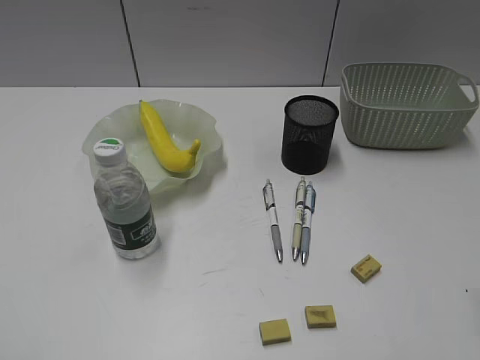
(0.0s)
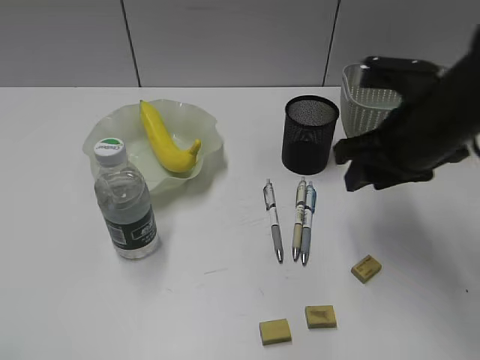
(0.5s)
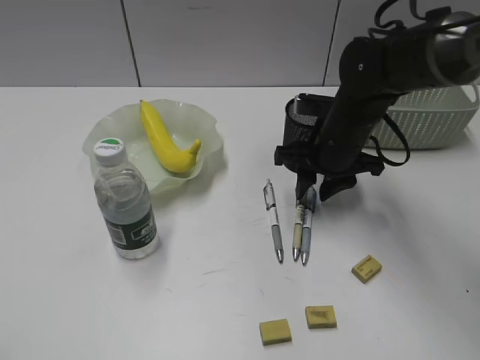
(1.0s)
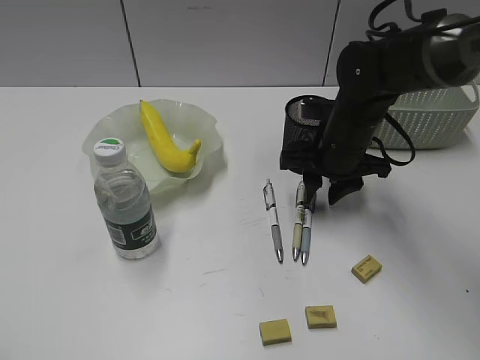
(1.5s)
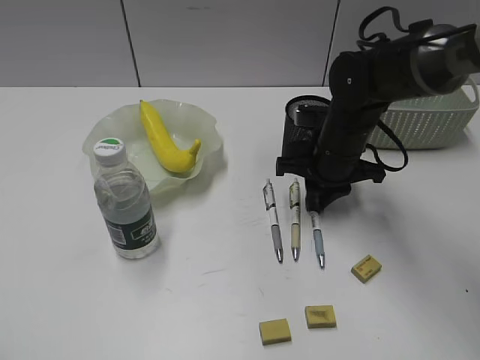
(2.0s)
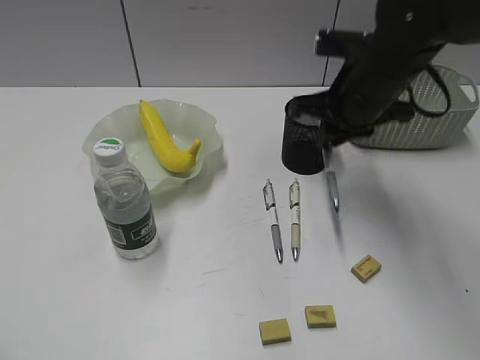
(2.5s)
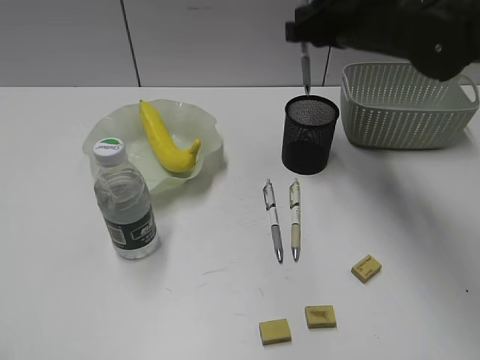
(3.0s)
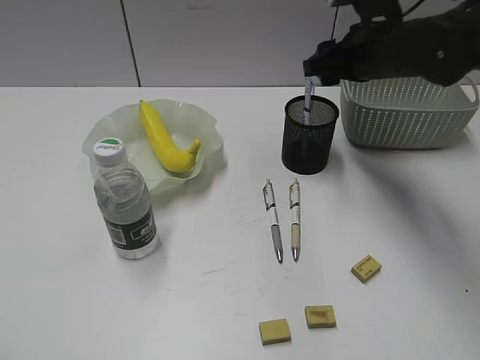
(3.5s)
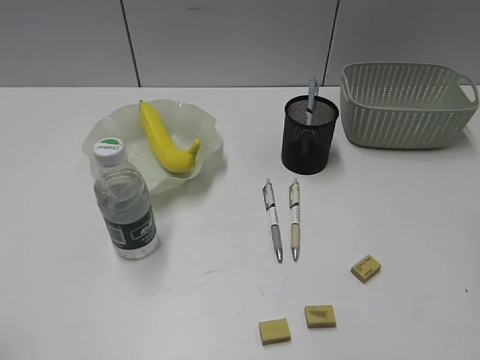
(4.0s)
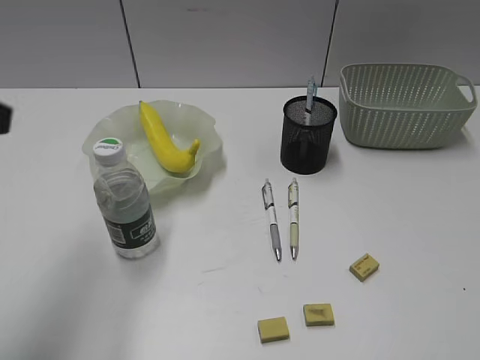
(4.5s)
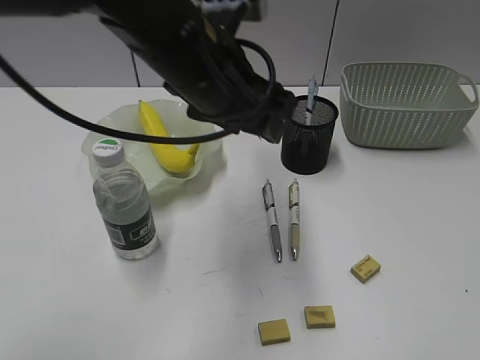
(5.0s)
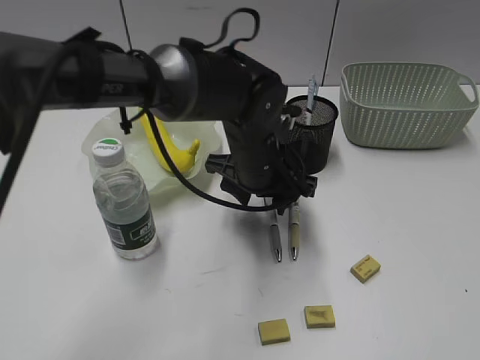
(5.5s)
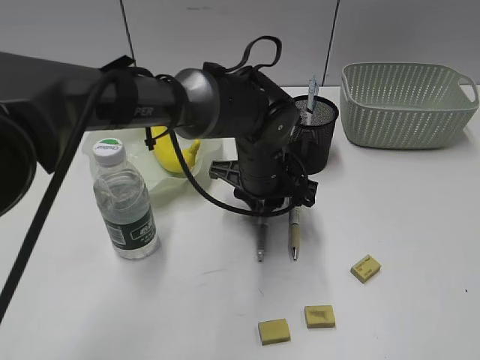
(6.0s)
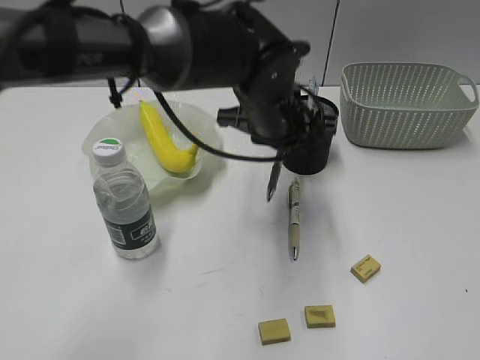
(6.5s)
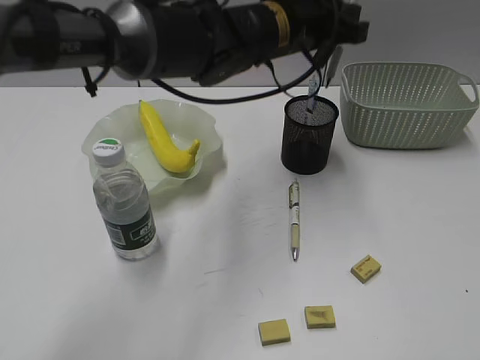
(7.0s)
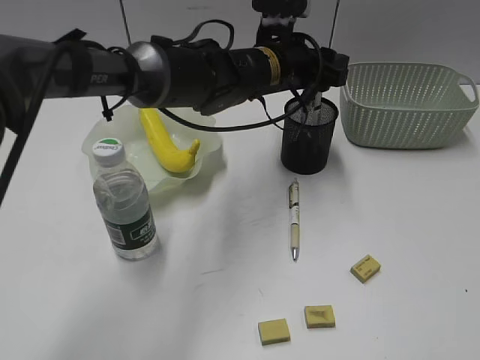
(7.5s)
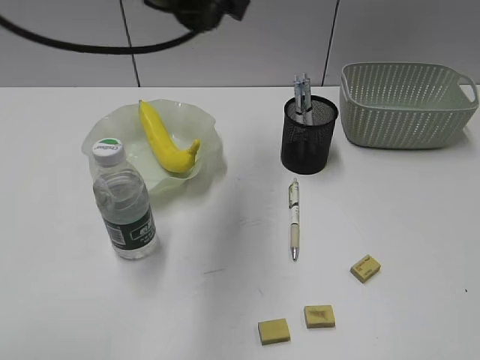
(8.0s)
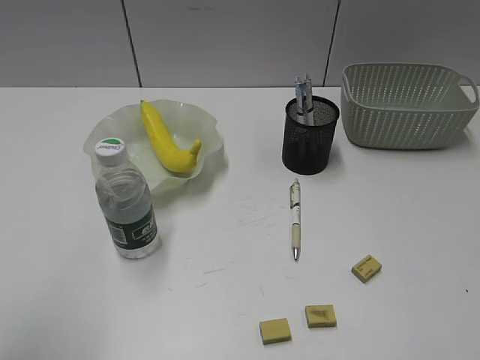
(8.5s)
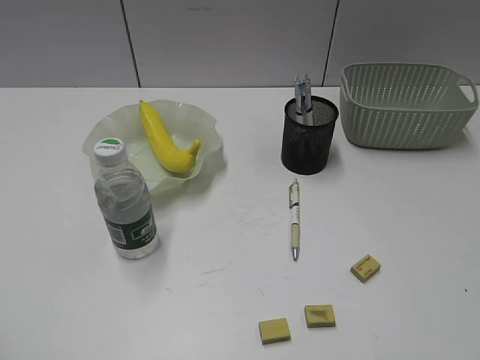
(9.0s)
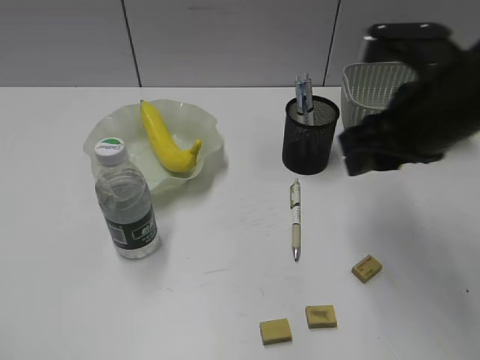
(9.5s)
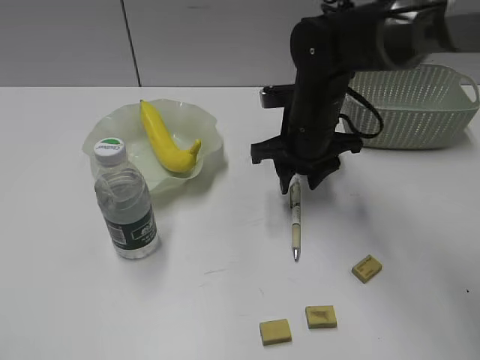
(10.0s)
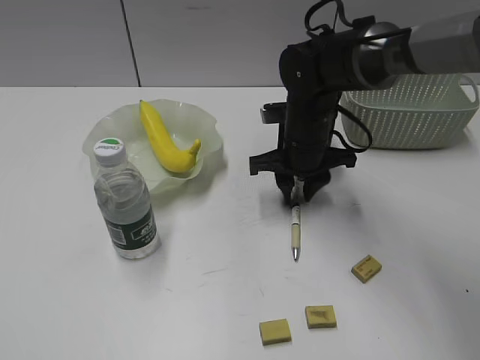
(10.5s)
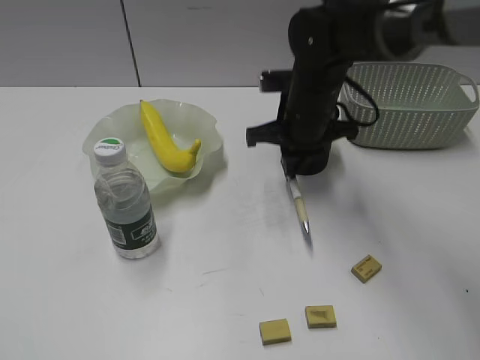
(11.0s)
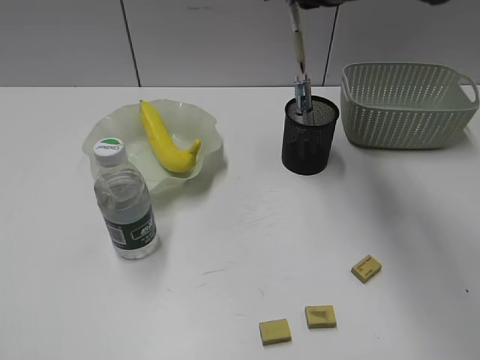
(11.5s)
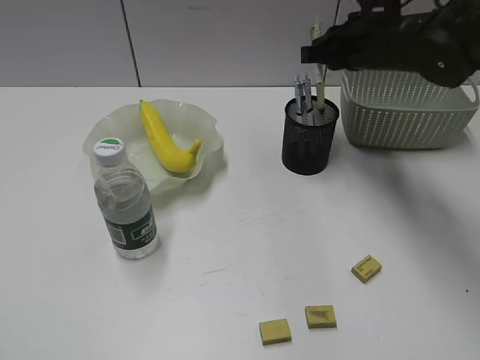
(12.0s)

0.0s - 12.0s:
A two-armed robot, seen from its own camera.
Step, 0.0s - 2.0s: Grasp the blue pen with right gripper.
Step, 2.5s - 3.5s: Place the blue pen in pen holder with right gripper.
Step, 4.0s - 6.0s: Grasp the gray pen with left gripper.
Step, 6.5s - 7.5s: Place the gray pen in pen holder with left gripper.
Step, 8.0s - 10.5s: Grasp the yellow pen with right gripper.
0.0s - 2.0s: The right gripper moves forward, downward and to the left, approximately 35 cm, and closes its fingers.
2.0s - 4.0s: The right gripper goes some 35 cm backward, upward and to the right, and opens.
4.0s - 6.0s: The right gripper travels backward by roughly 15 cm; the left gripper heads to the right, forward and downward, covering some 50 cm, and opens and closes again.
6.0s - 8.0s: The left gripper swings up and down, roughly 25 cm each way, with 2 reversals, and opens, then closes once more.
8.0s - 10.0s: The left gripper moves backward and to the left, approximately 40 cm, and opens, while the right gripper heads forward and to the left, covering roughly 40 cm.
10.0s - 12.0s: The right gripper travels to the right by some 10 cm, goes upward and returns, approximately 15 cm each way, and closes.

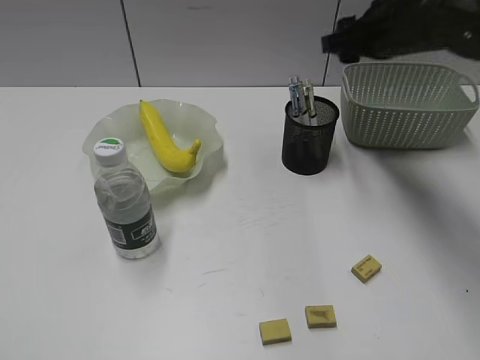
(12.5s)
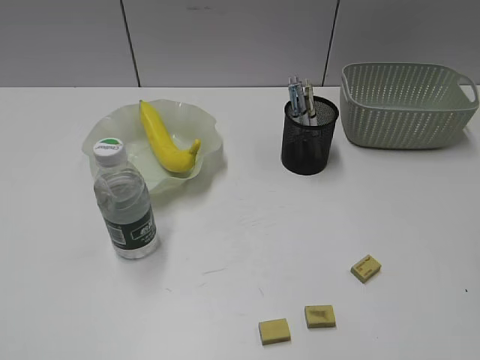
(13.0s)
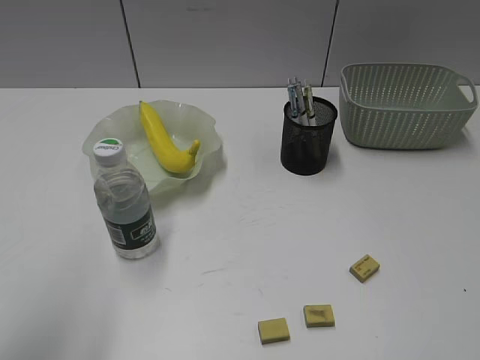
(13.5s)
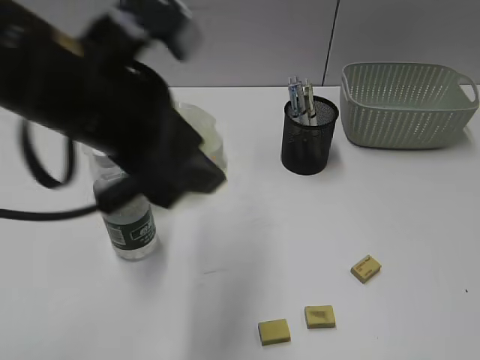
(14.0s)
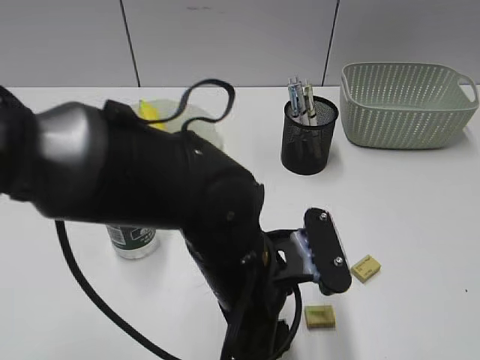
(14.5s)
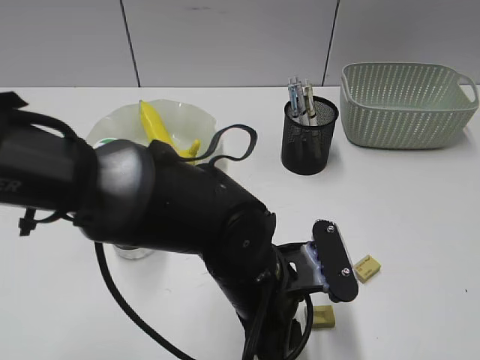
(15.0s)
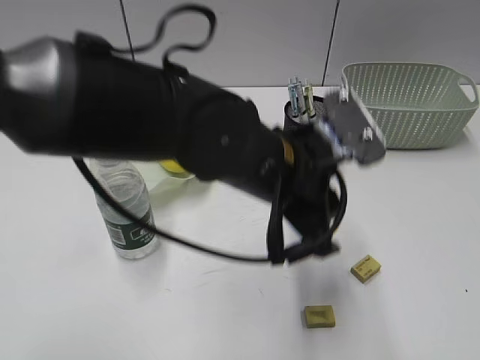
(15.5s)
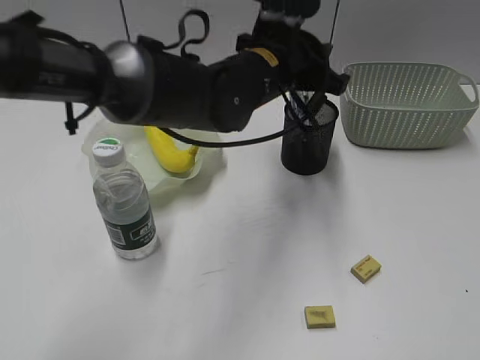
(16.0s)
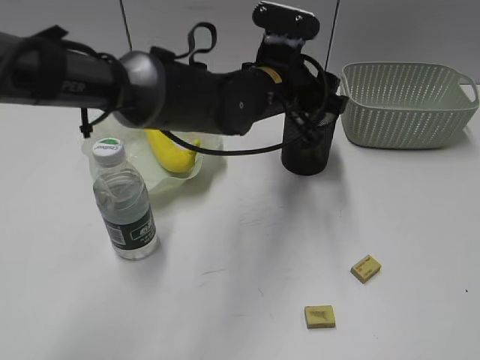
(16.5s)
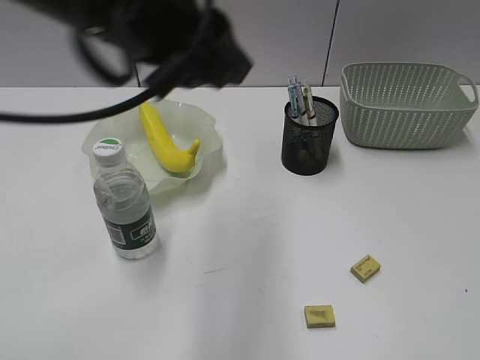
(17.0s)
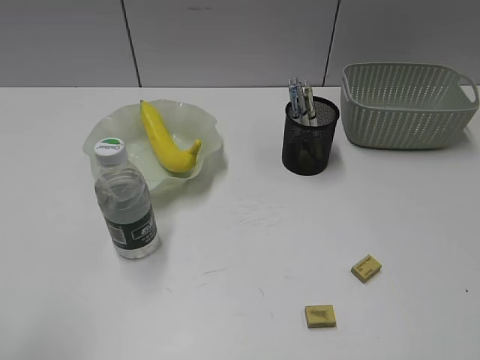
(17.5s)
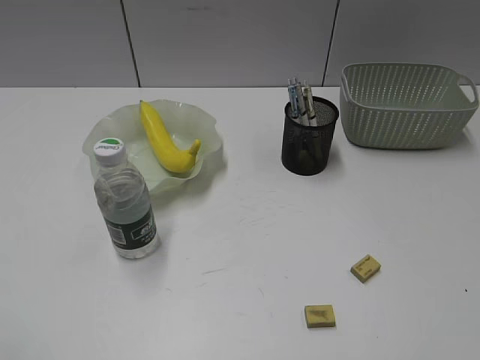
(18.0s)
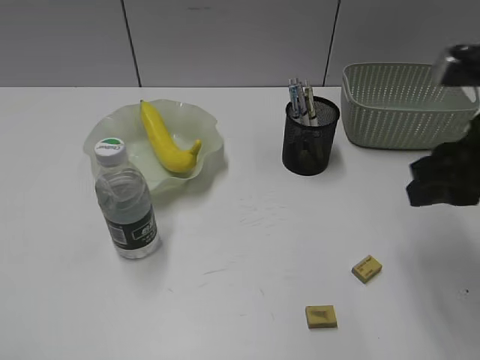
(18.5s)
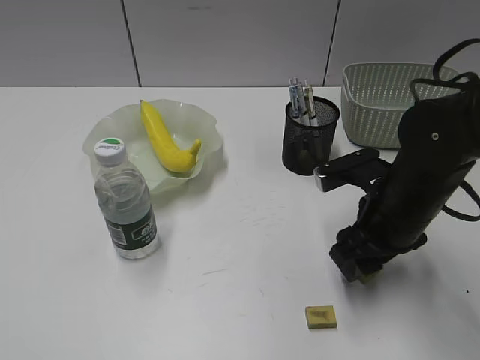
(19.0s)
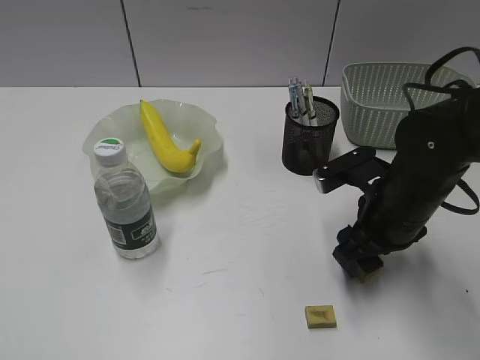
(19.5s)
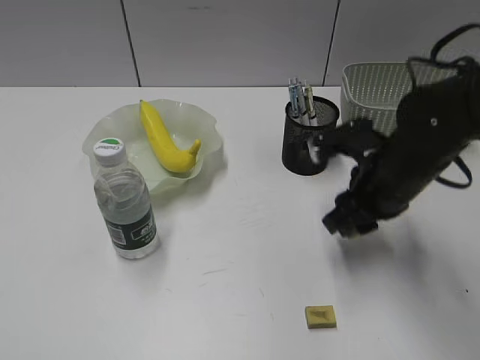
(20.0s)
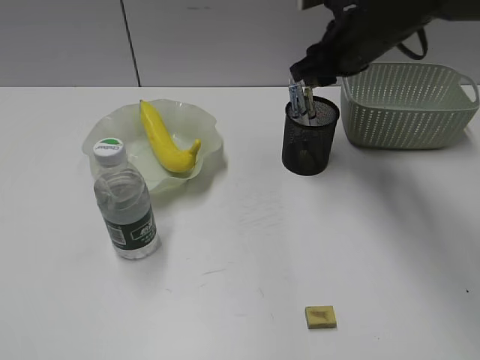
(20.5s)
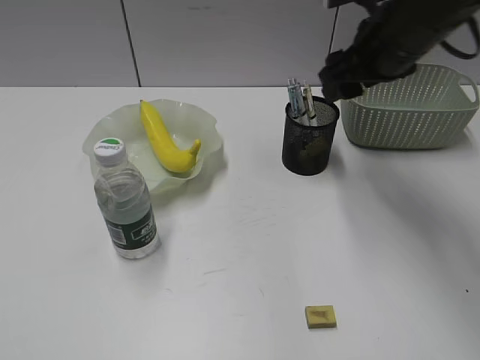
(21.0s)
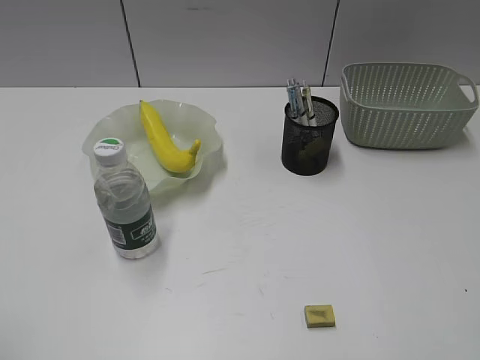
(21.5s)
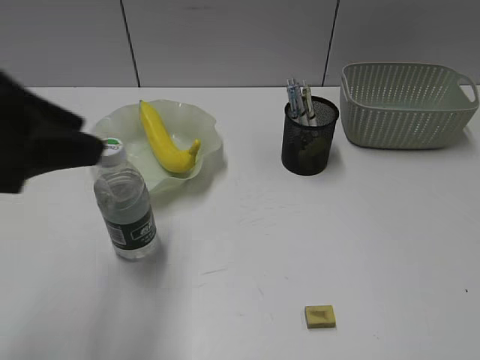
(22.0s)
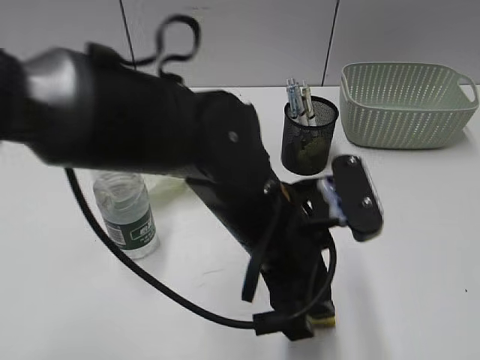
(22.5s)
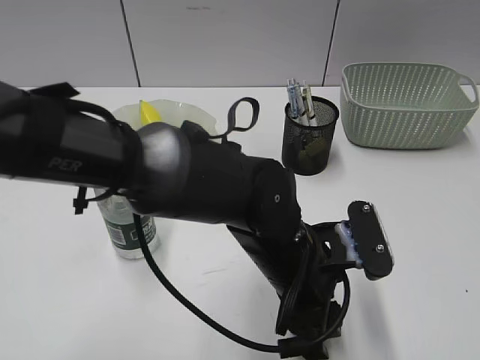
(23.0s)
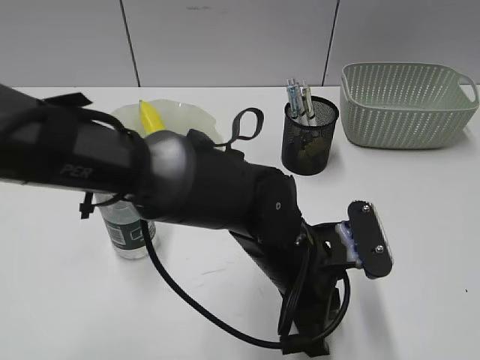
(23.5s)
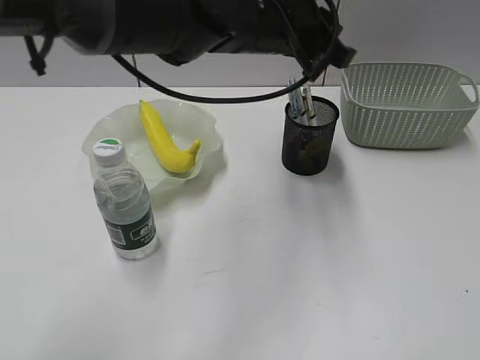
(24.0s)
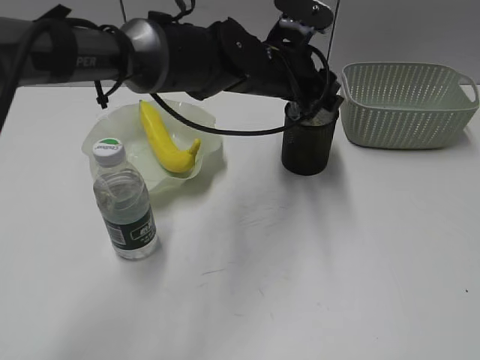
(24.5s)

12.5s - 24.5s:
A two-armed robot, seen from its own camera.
Step, 12.5s - 15.0s: Grasp the eraser with left gripper.
Step, 15.5s - 16.5s: Place the eraser in pen holder with left gripper.
Step, 17.0s - 19.5s: Grasp the eraser with right gripper.
Step, 20.0s - 20.5s: Place the eraser in pen holder with right gripper.
Step, 21.0s - 23.5s: Grasp the eraser with left gripper.
12.5s - 14.5s: The right gripper heads backward, covering roughly 40 cm, while the left gripper heads to the right, forward and downward, covering roughly 40 cm.
14.5s - 16.5s: The left gripper travels forward by roughly 20 cm, and closes, then opens again.
16.5s - 18.5s: The right gripper moves forward, about 25 cm; the left gripper shifts about 50 cm to the left and backward, and closes.
18.5s - 20.5s: The right gripper is displaced forward and to the left by roughly 20 cm, and opens, then closes once more.
20.5s - 22.5s: The right gripper heads backward, covering about 40 cm. The left gripper moves to the right and forward, approximately 40 cm.
22.5s - 24.5s: The left gripper goes some 20 cm forward, and closes, then opens again.

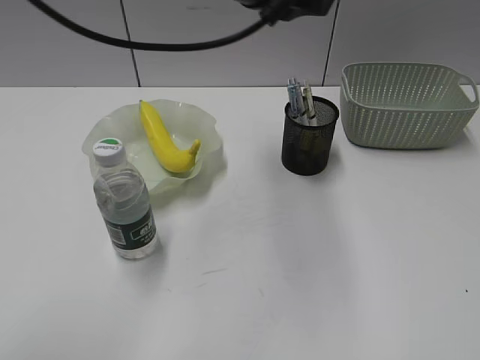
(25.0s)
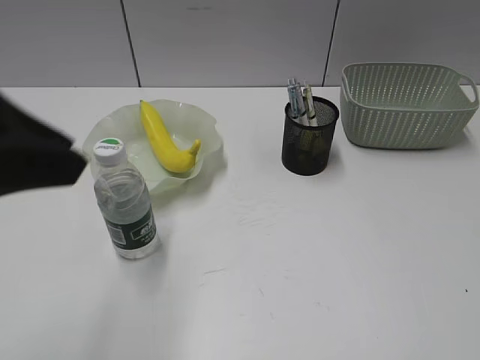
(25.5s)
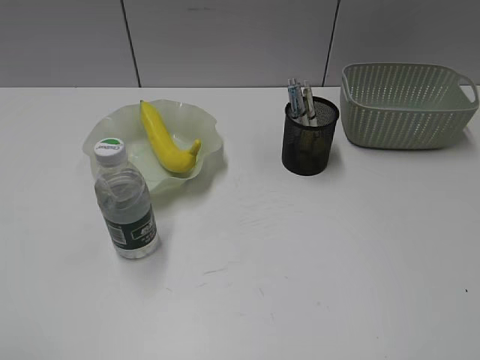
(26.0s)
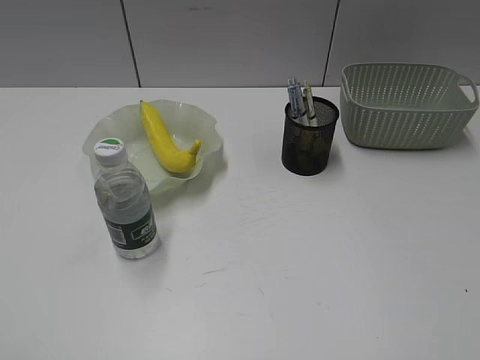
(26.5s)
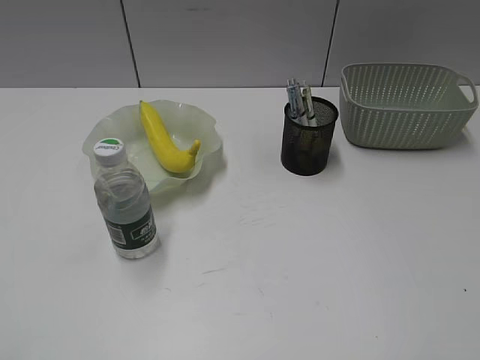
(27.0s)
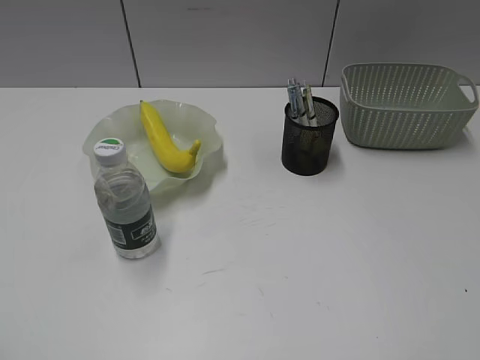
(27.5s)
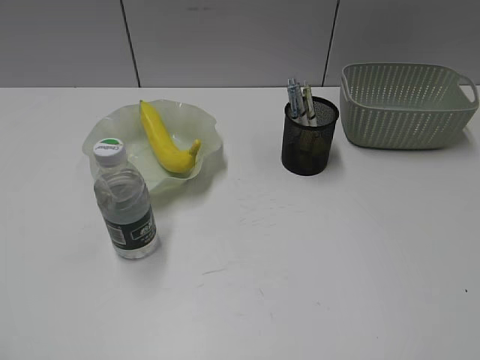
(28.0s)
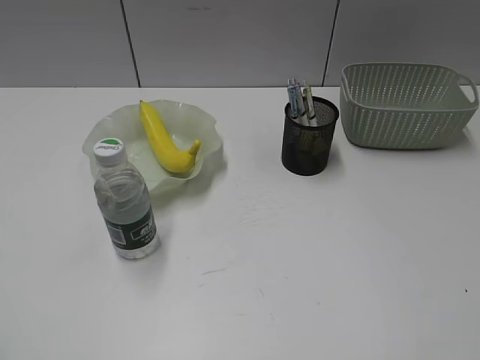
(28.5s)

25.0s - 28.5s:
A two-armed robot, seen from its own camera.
25.0s - 27.0s: The left gripper is displaced backward and to the left by roughly 40 cm.
